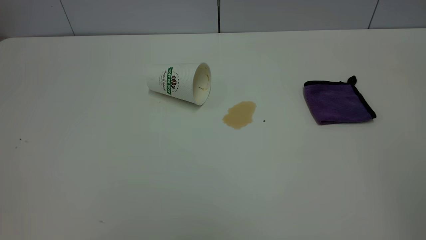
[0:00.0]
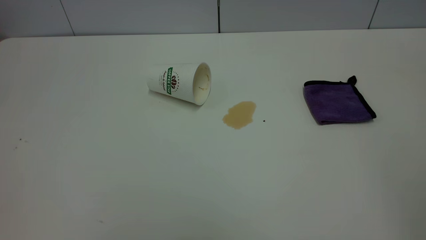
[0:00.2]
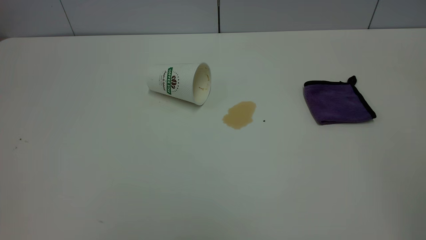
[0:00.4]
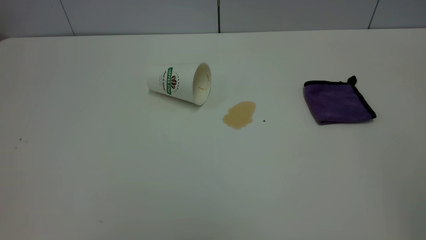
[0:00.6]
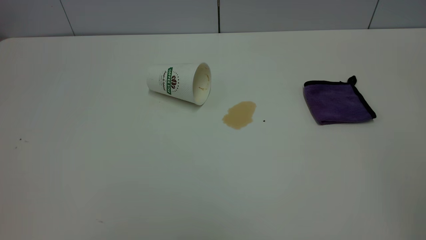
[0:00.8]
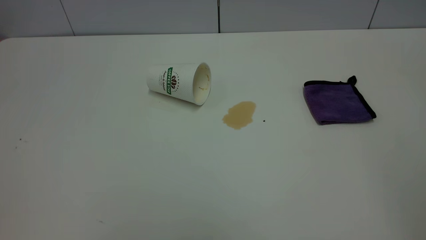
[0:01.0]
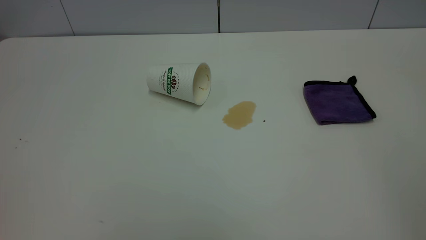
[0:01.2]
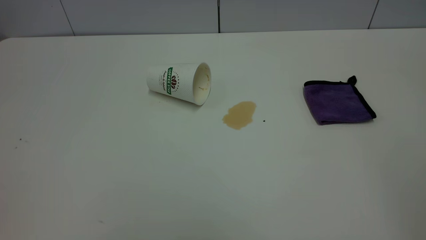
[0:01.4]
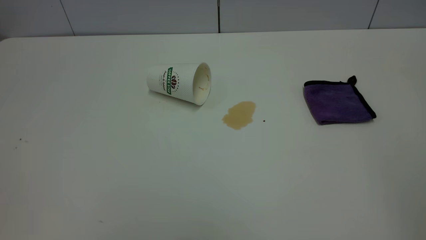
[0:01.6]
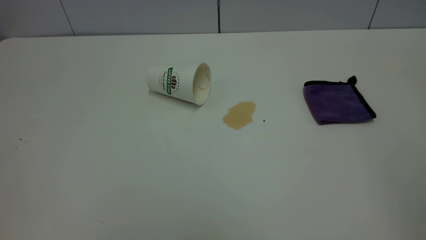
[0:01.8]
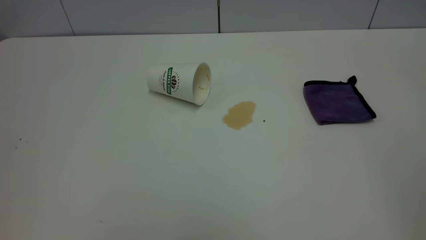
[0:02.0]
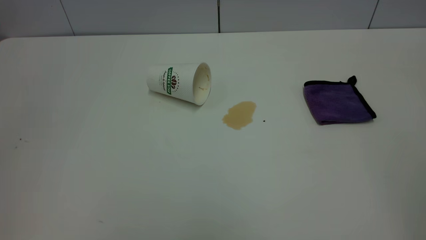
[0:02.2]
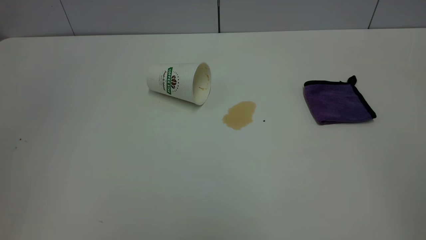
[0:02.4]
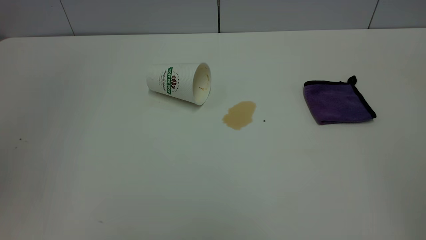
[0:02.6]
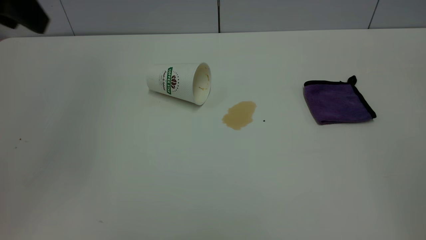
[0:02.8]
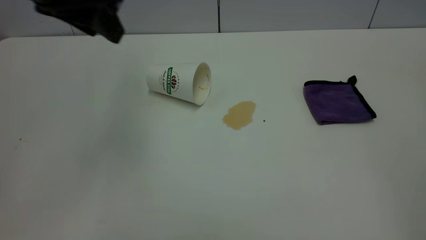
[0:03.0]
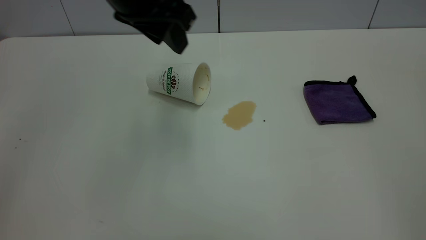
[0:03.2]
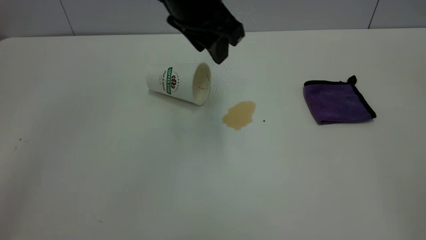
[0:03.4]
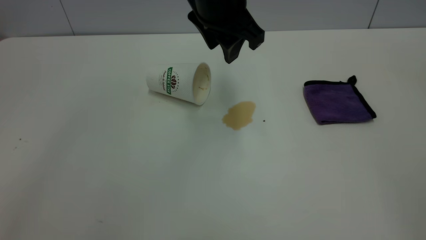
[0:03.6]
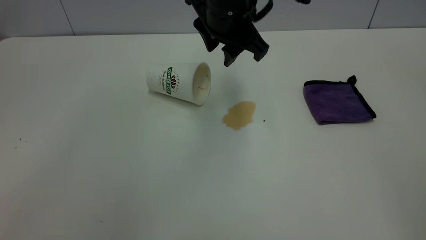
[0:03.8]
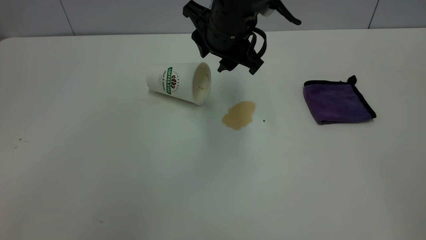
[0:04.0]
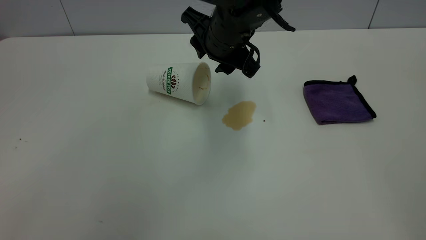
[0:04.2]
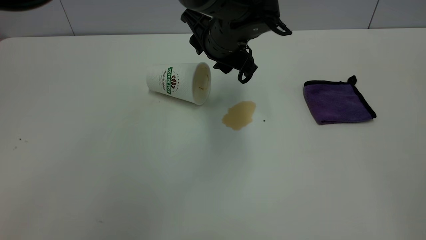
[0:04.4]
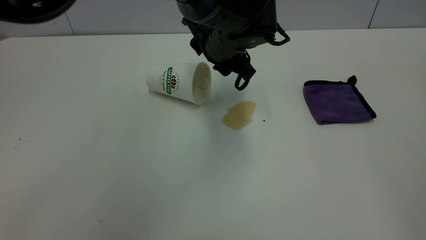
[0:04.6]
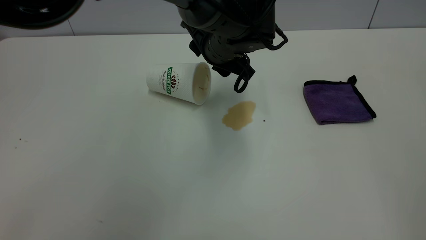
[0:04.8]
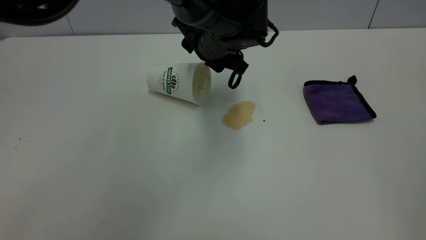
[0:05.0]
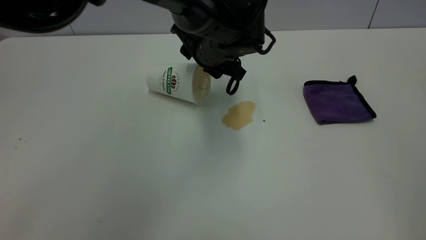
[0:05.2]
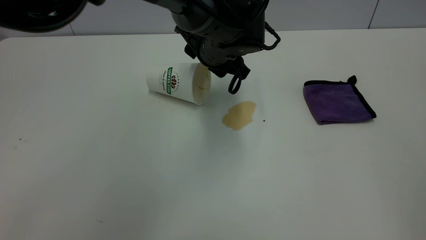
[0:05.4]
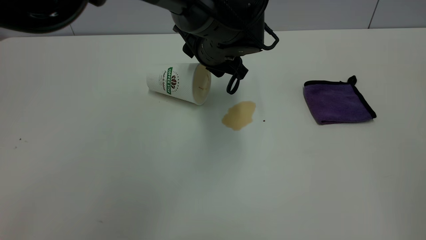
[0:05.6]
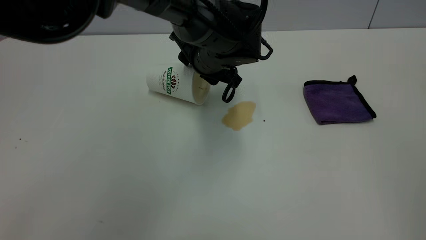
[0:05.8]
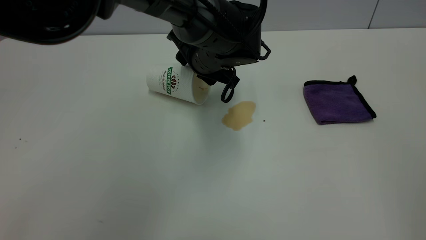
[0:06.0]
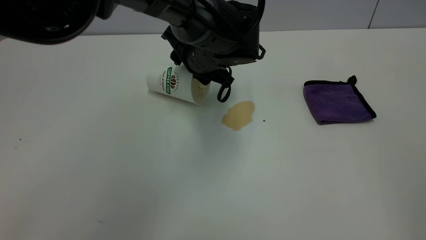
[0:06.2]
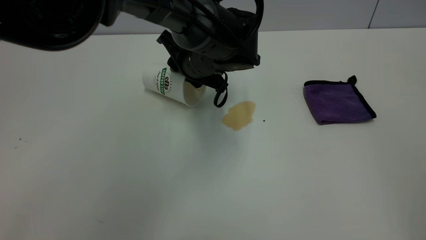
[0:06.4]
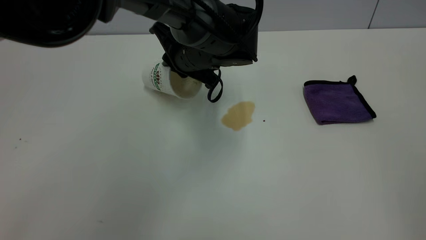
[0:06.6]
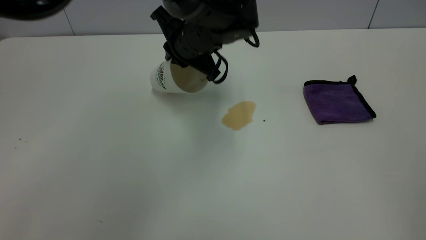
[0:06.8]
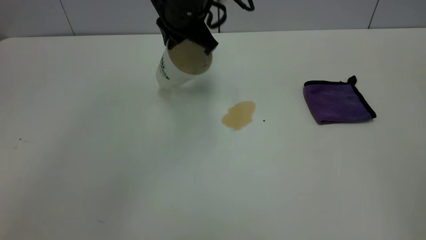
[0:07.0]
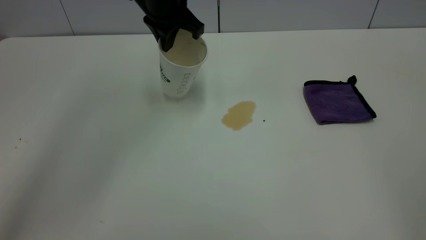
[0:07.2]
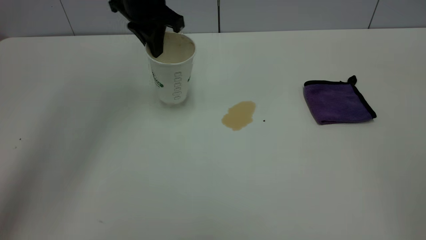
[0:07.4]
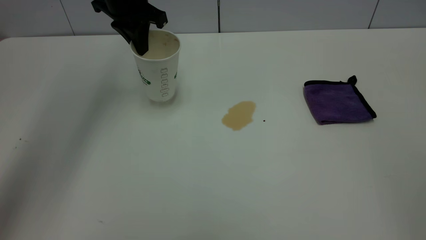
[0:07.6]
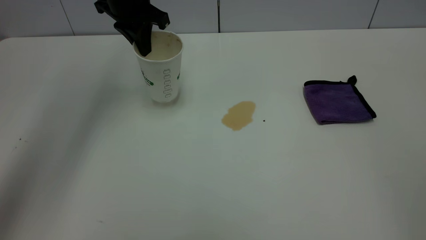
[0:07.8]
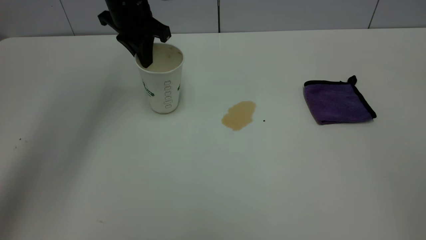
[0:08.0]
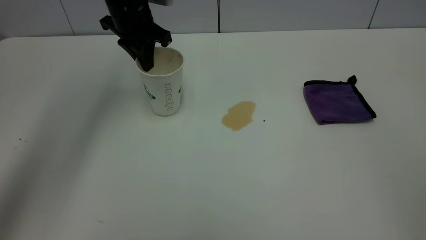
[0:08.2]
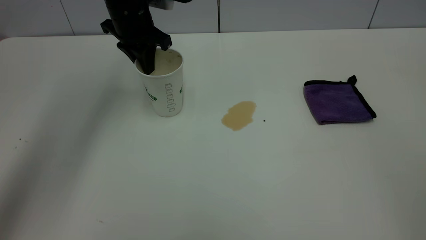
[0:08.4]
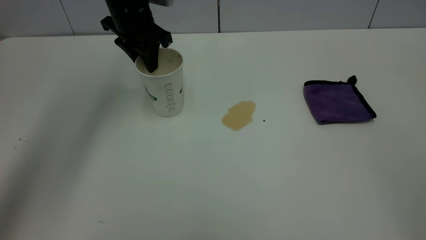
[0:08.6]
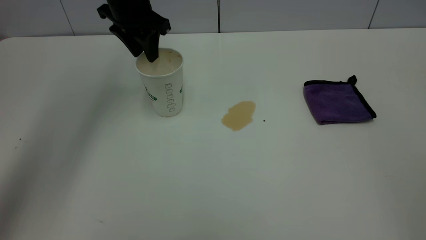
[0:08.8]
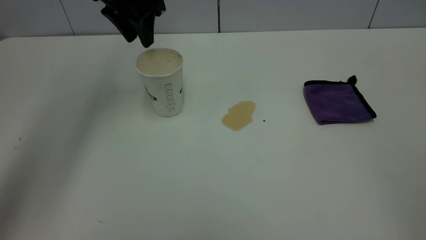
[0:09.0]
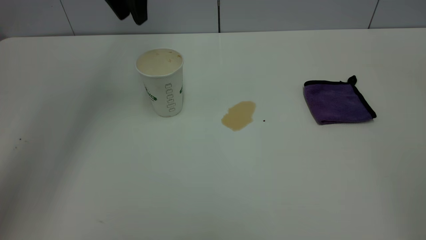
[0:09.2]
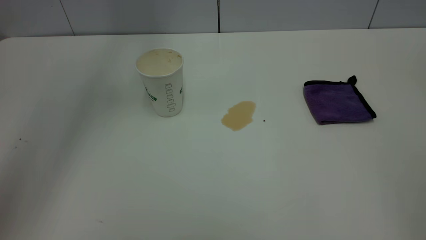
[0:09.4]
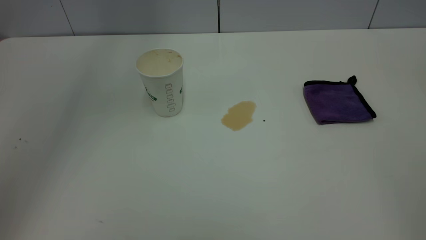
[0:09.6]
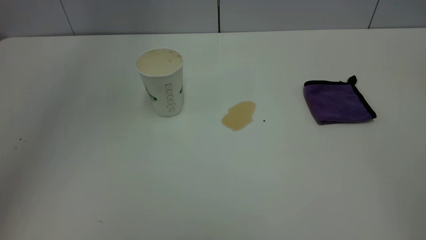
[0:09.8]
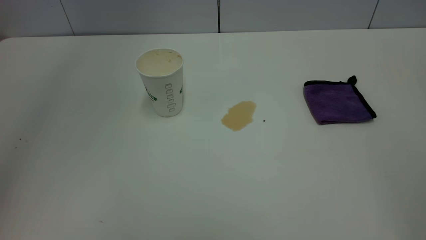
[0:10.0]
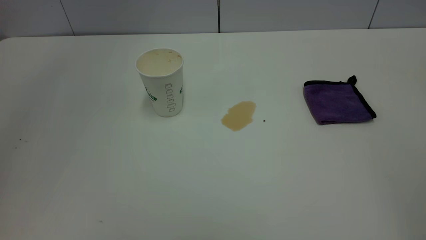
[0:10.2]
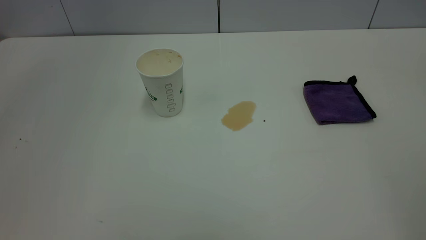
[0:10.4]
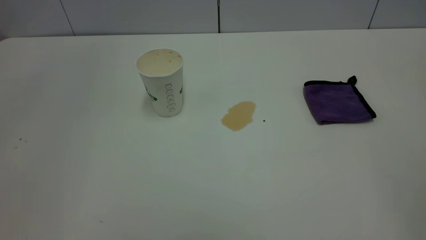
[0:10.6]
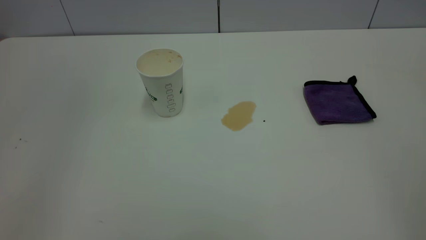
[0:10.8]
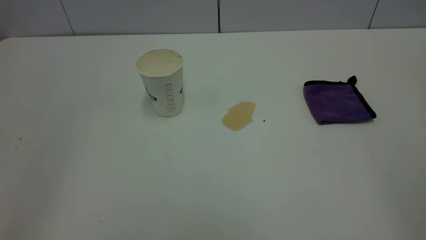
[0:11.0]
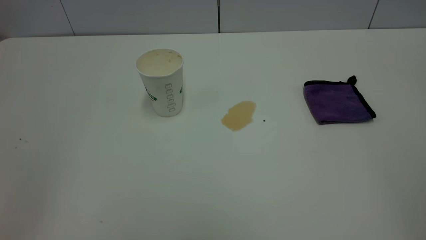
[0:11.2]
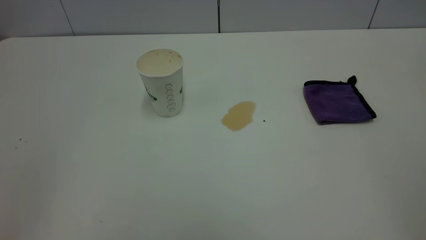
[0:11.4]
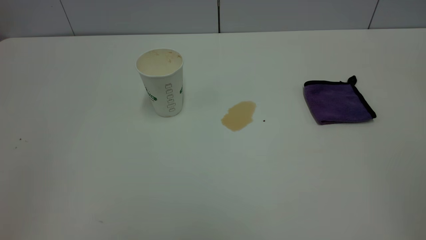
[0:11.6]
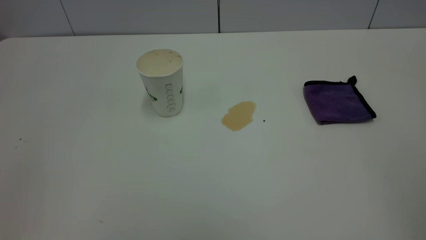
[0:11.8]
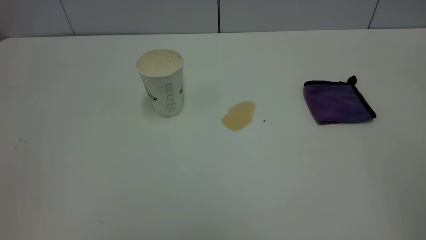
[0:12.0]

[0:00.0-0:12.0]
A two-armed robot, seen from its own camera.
Task of the whole recording: the left gripper pick up the fallen cup and place it upright, the right gripper grasp the purple rag and wipe the tea stain on the table, the right gripper put the purple rag back in its original position.
Step, 0:00.0 to 0:09.0: Stand the paper cup upright.
0:00.0 to 0:01.6: The two grippers keep their place.
0:01.6 to 0:03.0: The left gripper moves forward and to the right, some 35 cm.
0:03.0 to 0:04.4: The left gripper is displaced to the right, downward and forward by roughly 25 cm.
0:04.4 to 0:06.0: The left gripper shifts by about 5 cm.
0:06.0 to 0:07.6: The left gripper moves to the left, upward and forward, about 20 cm, and closes up.
0:07.6 to 0:09.0: The left gripper opens up.
0:09.0 to 0:10.4: The left gripper shifts some 40 cm upward and backward.

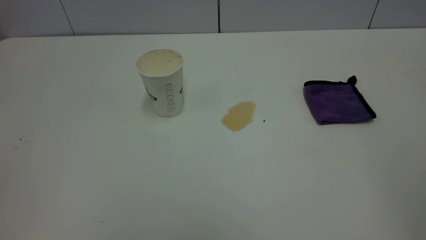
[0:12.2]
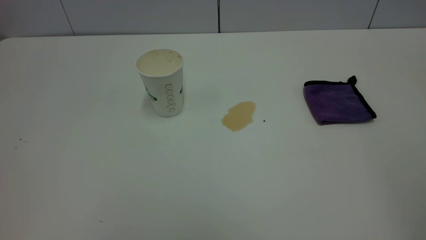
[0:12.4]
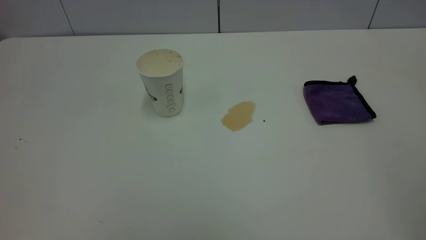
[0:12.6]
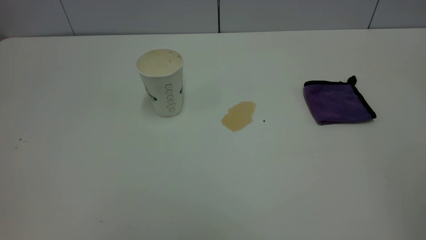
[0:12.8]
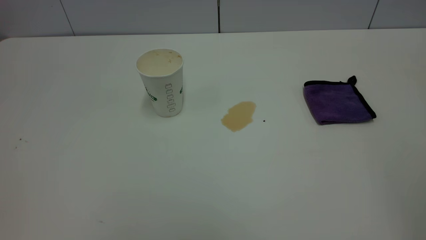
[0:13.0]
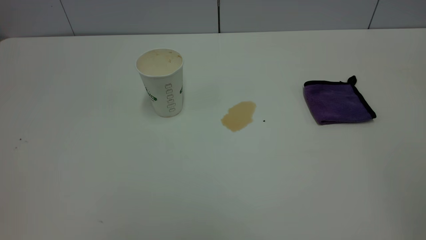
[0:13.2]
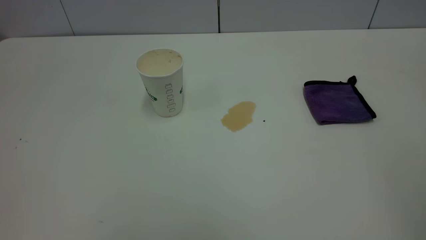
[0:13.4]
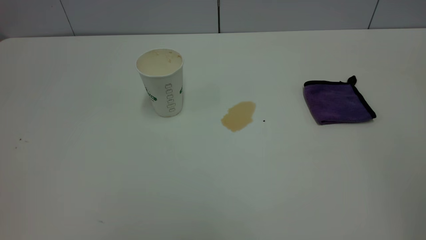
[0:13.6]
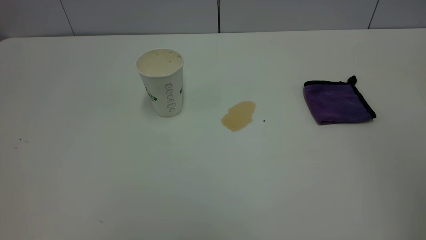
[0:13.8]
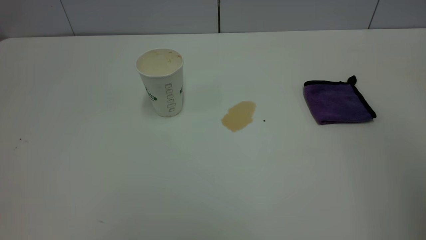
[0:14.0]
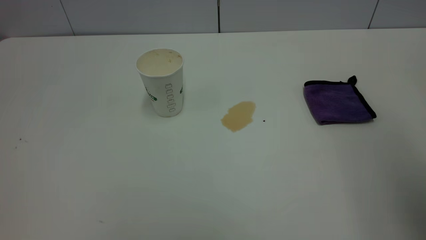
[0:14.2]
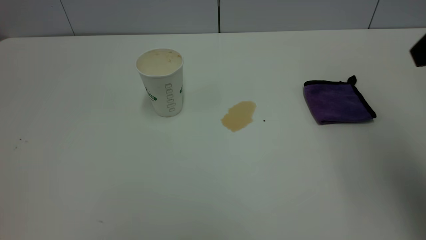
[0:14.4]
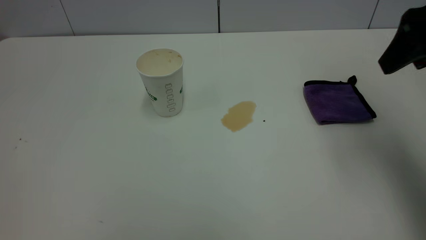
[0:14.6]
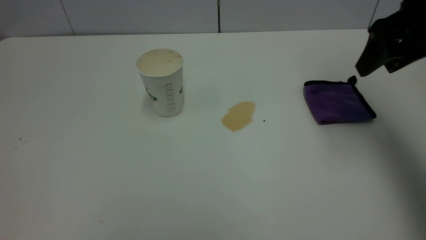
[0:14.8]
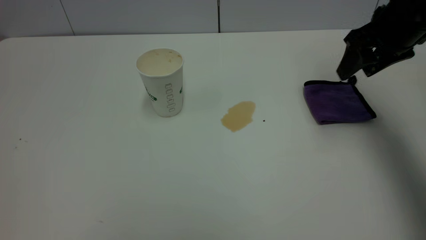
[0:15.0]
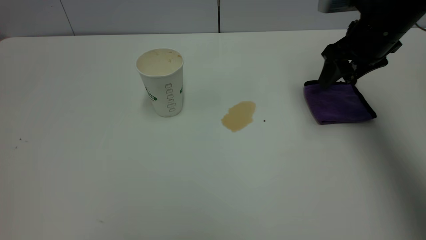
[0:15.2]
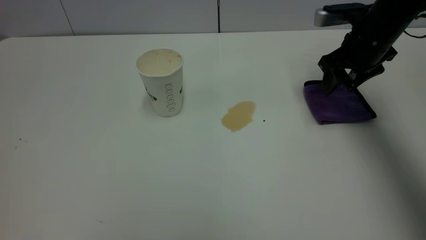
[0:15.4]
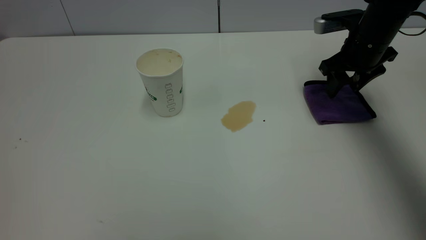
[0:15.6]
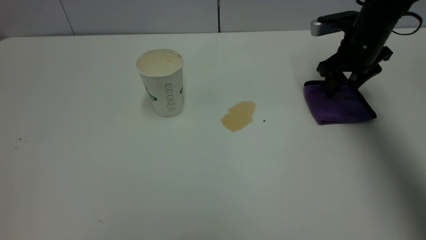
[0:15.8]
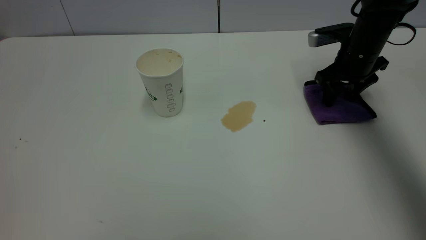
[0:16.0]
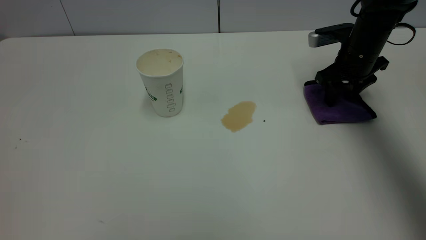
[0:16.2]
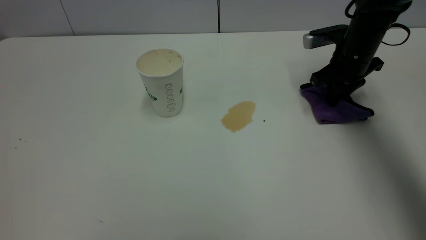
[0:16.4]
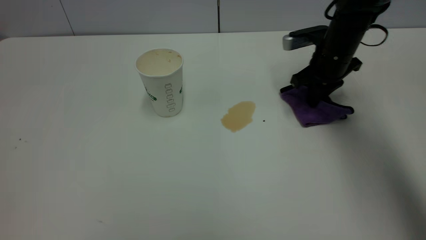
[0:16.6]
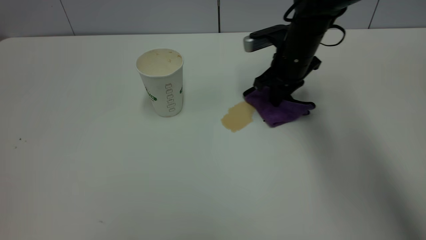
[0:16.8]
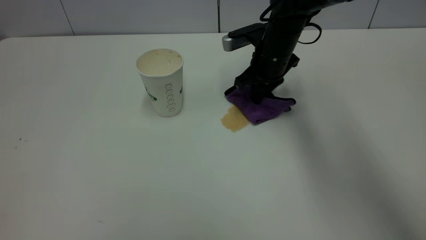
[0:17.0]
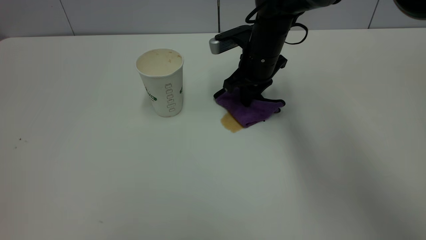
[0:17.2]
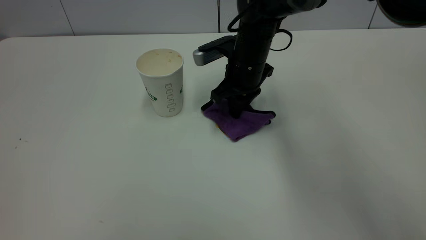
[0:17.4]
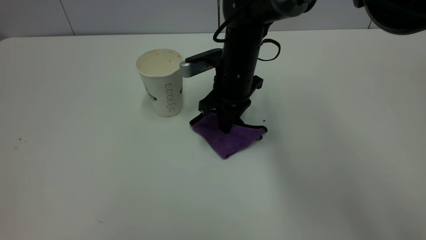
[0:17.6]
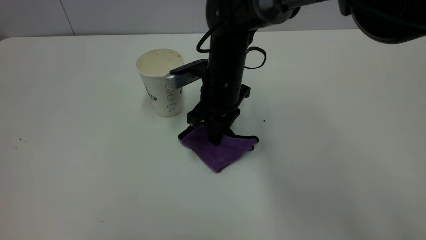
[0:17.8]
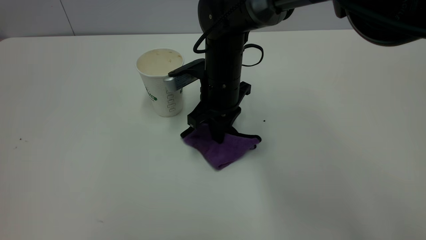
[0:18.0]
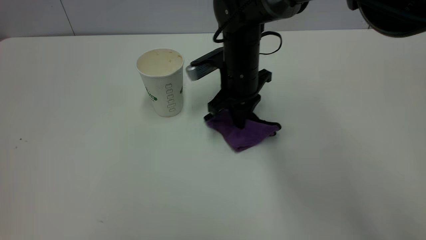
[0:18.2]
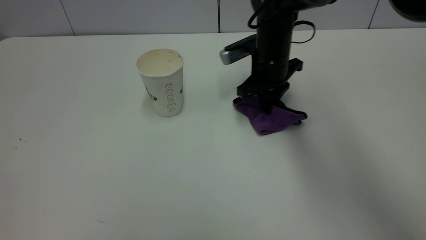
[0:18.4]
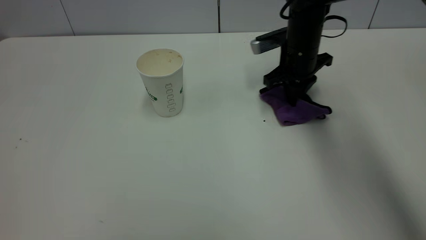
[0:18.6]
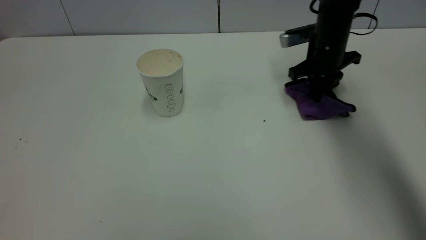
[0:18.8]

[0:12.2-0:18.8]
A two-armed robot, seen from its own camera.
Task of the whole recording: the left gripper pick up the fallen cup and place it upright, the right gripper grasp the purple rag and wipe the tea stain on the table, the right gripper put the purple rag back in its original position.
0:13.8 to 0:15.4: The right gripper moves forward and downward, approximately 50 cm.
0:15.4 to 0:17.2: The right gripper moves to the left, about 20 cm, and closes.
0:17.2 to 0:18.8: The right gripper shifts some 15 cm to the right.
